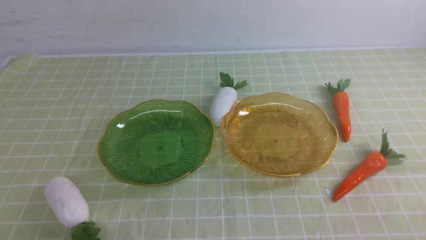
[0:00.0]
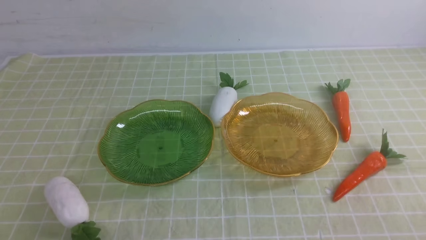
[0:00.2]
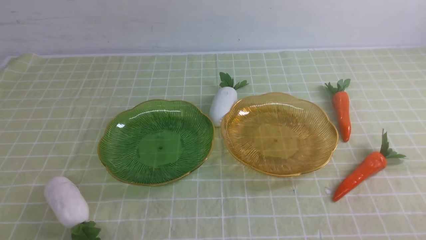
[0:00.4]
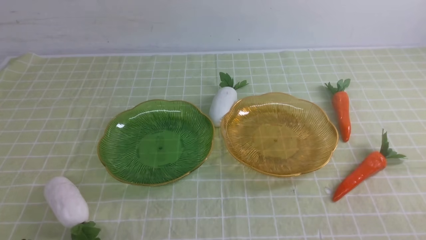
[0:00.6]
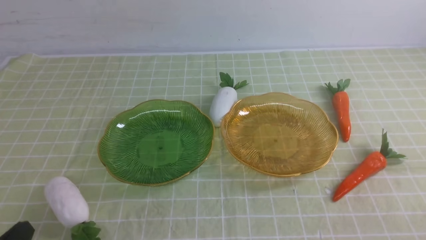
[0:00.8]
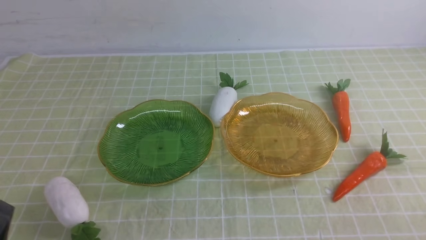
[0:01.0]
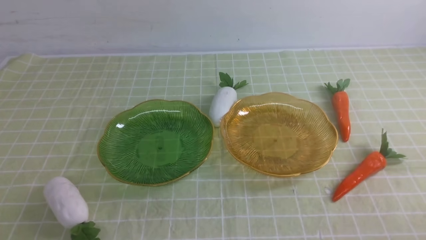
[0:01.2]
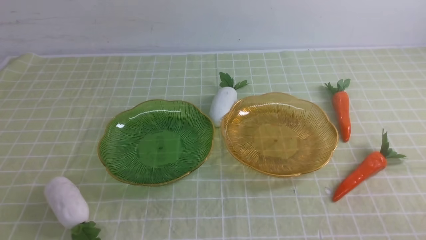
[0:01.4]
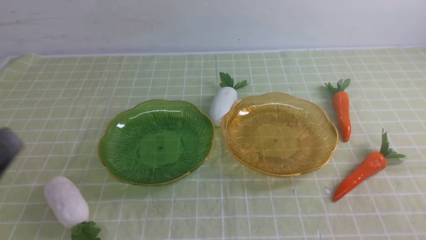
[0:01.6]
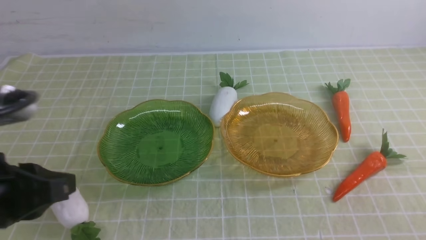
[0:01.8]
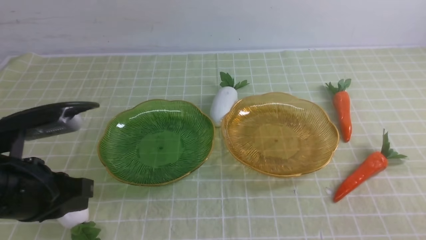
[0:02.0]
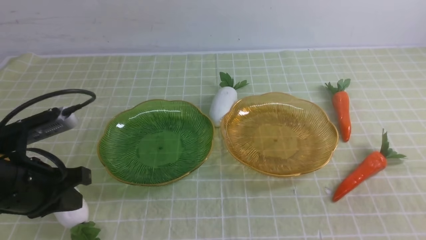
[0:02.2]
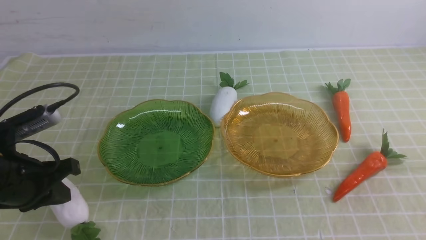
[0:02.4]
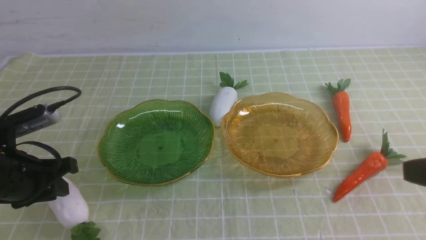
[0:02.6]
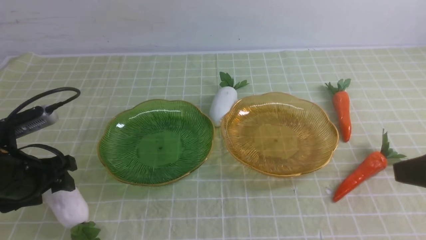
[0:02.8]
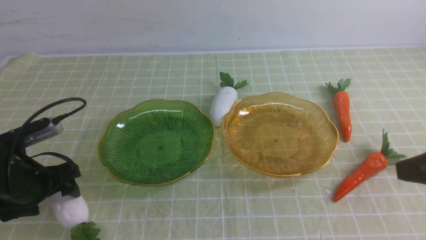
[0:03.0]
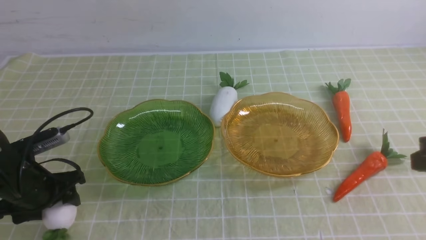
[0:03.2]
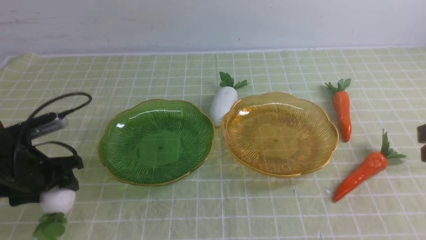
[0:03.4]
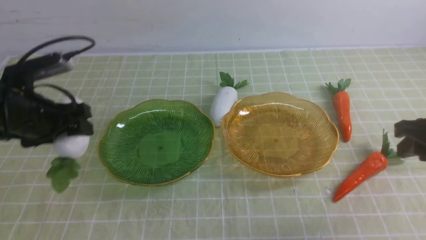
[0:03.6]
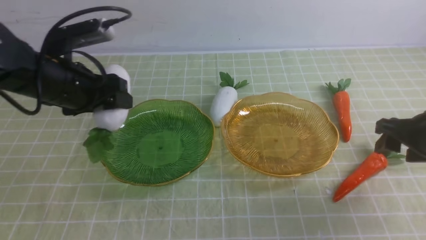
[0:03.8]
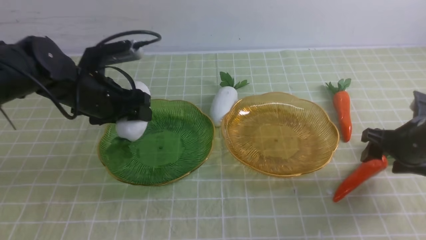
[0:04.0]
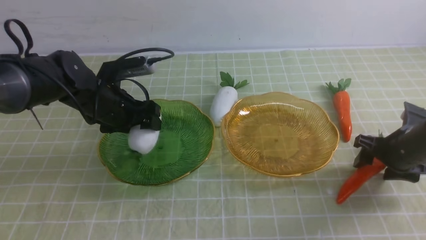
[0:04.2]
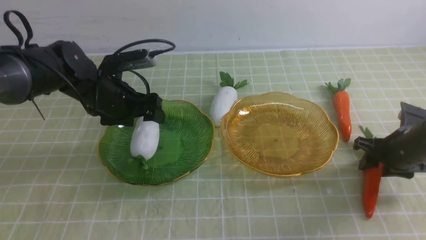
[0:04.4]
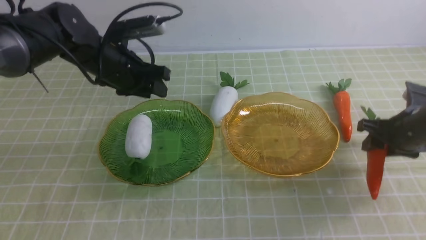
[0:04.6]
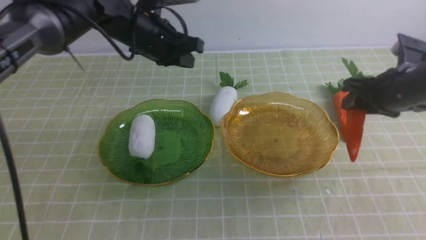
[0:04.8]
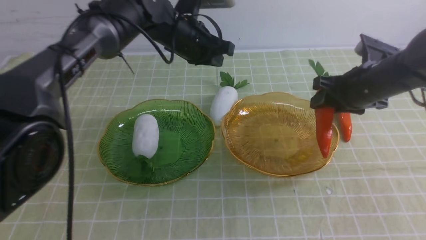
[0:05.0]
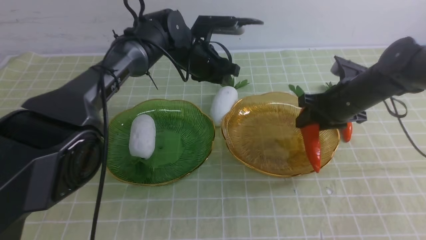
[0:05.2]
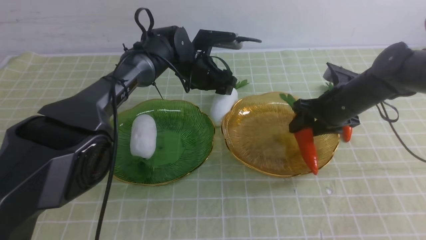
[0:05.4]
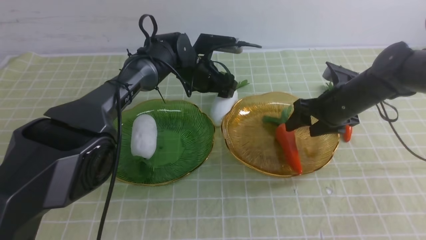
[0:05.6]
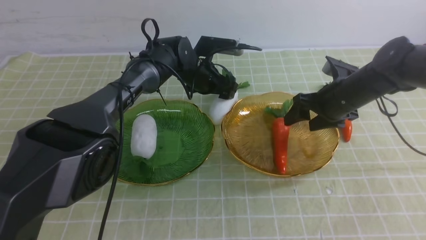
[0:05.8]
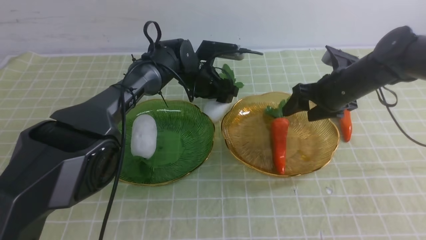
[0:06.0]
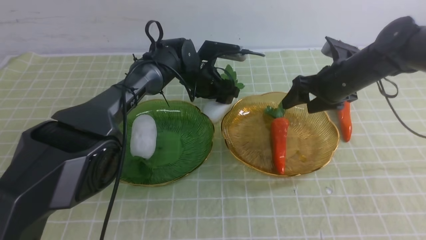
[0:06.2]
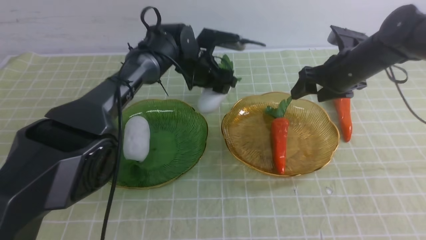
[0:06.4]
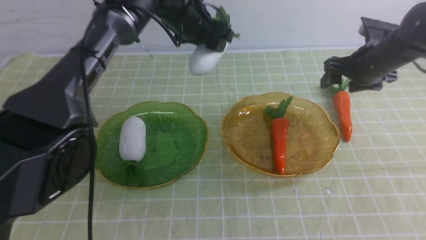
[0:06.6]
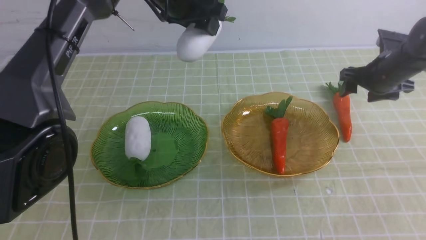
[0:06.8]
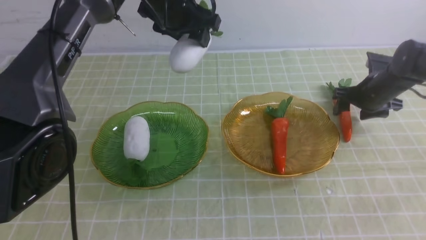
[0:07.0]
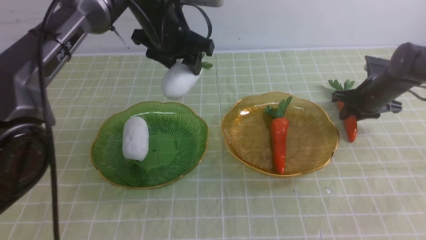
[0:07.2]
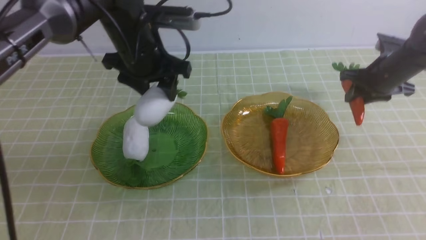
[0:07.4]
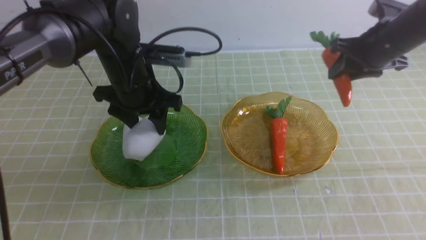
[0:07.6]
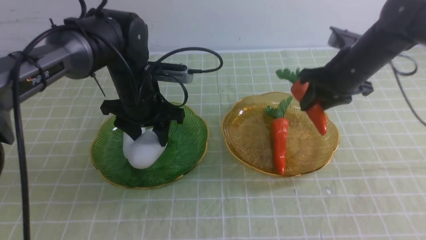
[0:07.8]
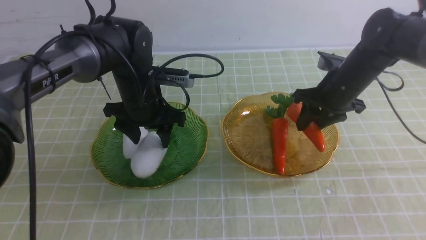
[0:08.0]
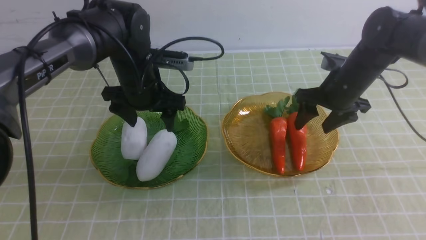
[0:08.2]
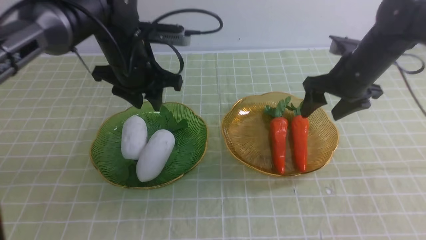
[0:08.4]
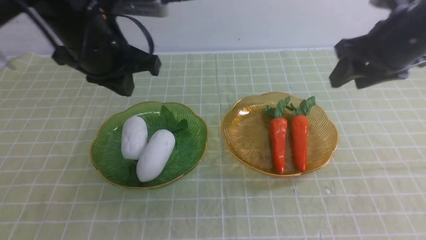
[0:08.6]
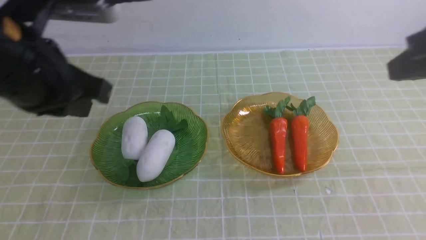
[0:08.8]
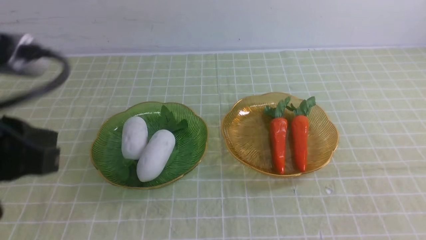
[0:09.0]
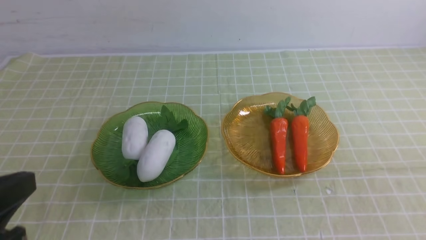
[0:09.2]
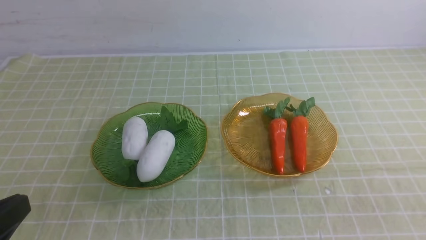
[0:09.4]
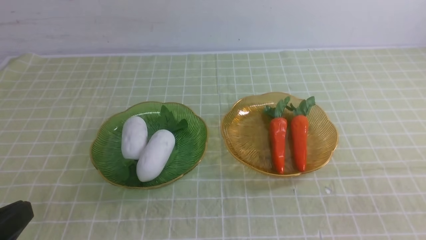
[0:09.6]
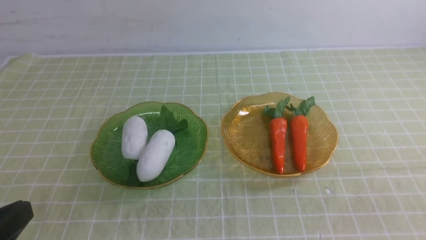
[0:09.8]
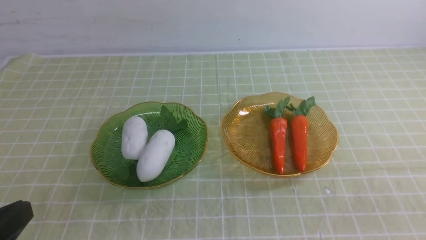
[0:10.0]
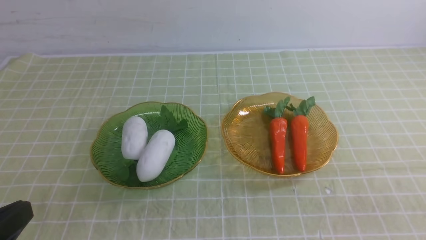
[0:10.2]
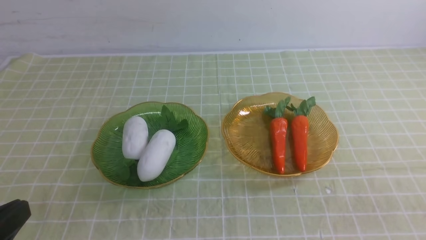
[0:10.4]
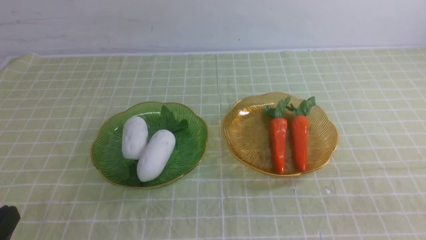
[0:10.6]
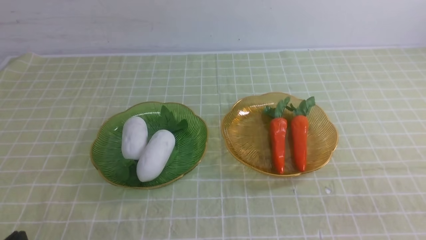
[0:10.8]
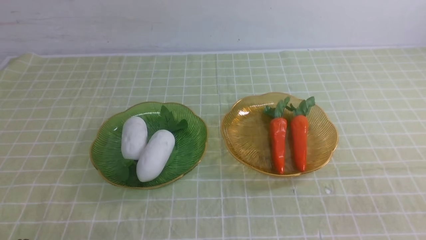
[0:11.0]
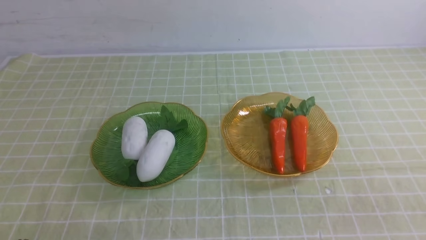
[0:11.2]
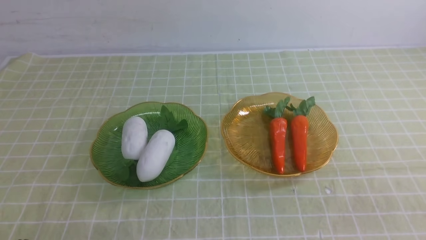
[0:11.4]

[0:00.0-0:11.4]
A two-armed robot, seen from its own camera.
Step, 0:00.0 to 0:04.8: use the left arm to grab a radish and put it into the left plate.
Step, 0:05.0 to 0:05.6: use the right arm to grab a carrot and put it into the right plate.
Step, 0:05.8 to 0:08.0: use the left arm to grab a radish and put it into the left plate.
Step, 0:08.2 to 0:08.8: use the right arm to grab a chayote and put it into the right plate.
0:01.4 to 0:02.8: The left gripper travels forward and downward by approximately 20 cm, and opens, while the right gripper goes roughly 15 cm upward and forward.
0:02.8 to 0:04.2: The right gripper is displaced forward and downward by approximately 25 cm, and opens up, while the left gripper travels forward and to the right by roughly 15 cm.
0:04.2 to 0:05.6: The left gripper shifts some 20 cm to the right and forward, and closes and opens again. Meanwhile the right gripper goes approximately 15 cm forward and to the left.
0:05.6 to 0:07.2: The left gripper shifts approximately 15 cm upward and backward; the right gripper is displaced to the right by some 10 cm.
0:07.2 to 0:08.6: The right gripper travels upward and backward by approximately 25 cm, while the left gripper is displaced backward and to the left by about 15 cm, travels downward and back again, approximately 10 cm each way, and closes up.
0:08.6 to 0:10.0: Both grippers travel together backward, about 25 cm. The right gripper closes its fingers.
0:10.0 to 0:11.4: The left gripper is displaced downward by roughly 10 cm.

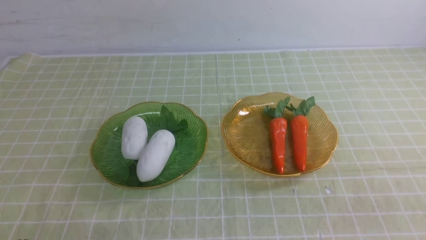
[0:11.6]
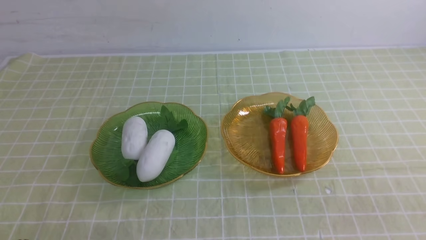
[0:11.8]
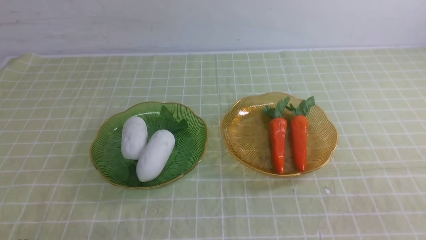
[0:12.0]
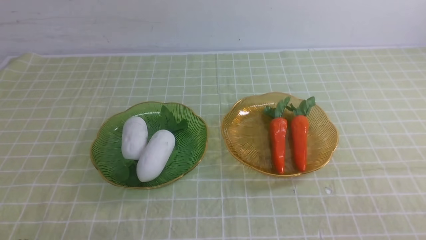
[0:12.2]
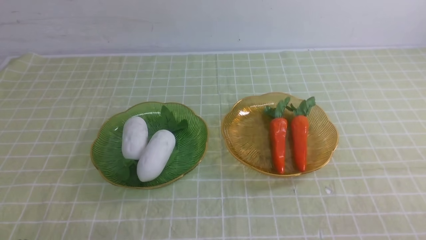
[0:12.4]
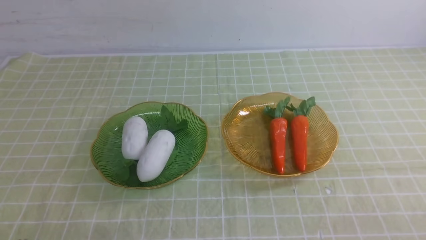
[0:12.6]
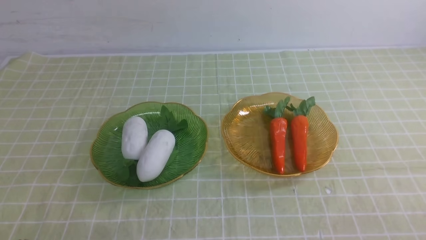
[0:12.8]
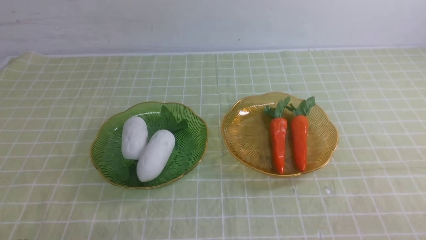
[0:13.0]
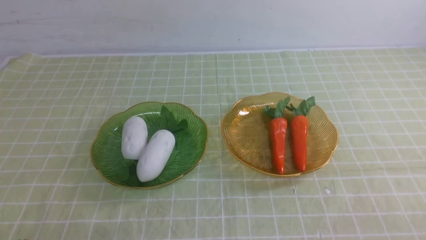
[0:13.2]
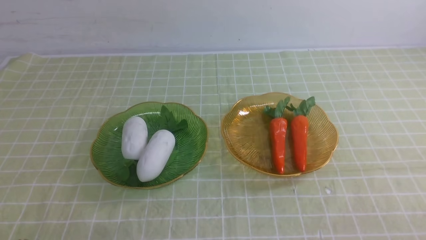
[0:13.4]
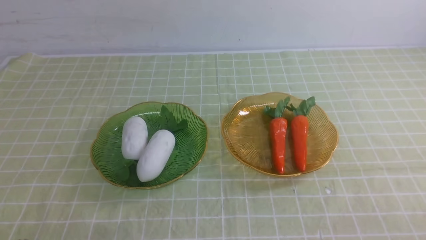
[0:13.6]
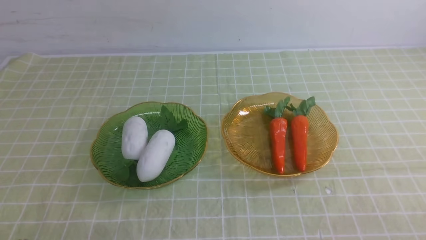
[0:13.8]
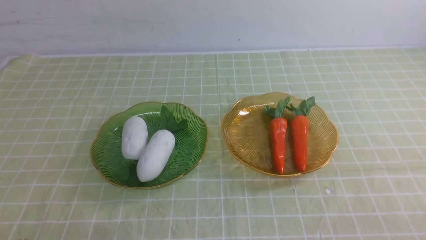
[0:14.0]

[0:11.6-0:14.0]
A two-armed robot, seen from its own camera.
0:12.8 to 0:14.0: Both grippers stay put.
